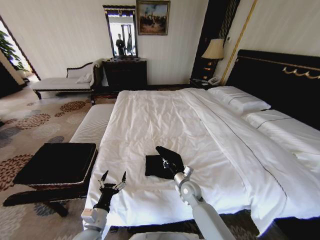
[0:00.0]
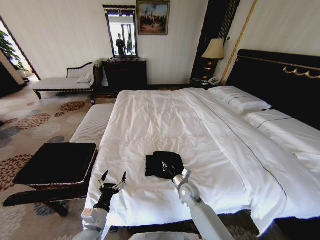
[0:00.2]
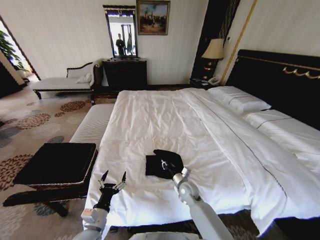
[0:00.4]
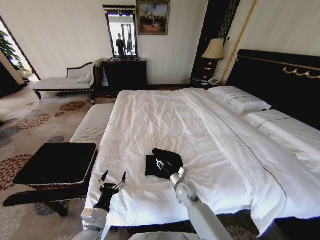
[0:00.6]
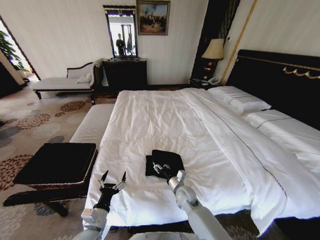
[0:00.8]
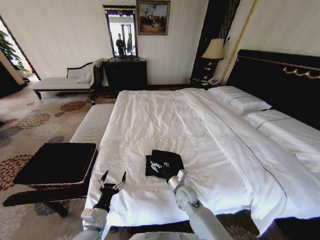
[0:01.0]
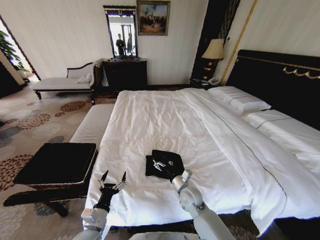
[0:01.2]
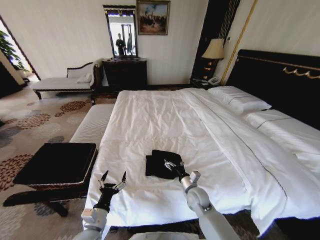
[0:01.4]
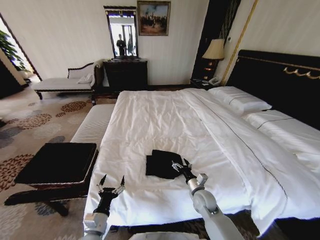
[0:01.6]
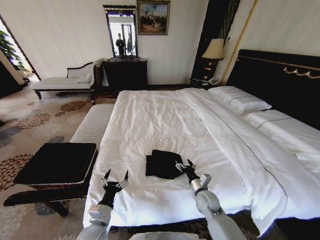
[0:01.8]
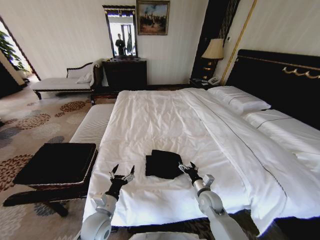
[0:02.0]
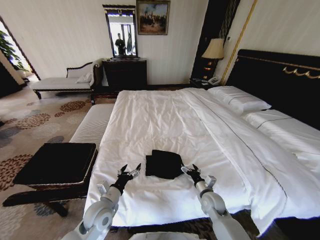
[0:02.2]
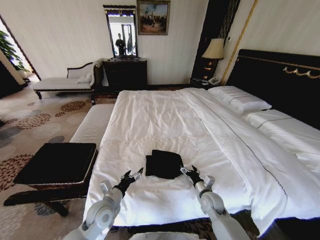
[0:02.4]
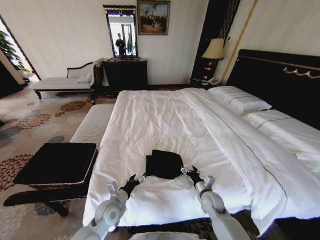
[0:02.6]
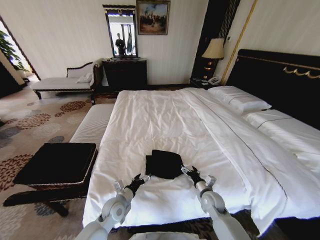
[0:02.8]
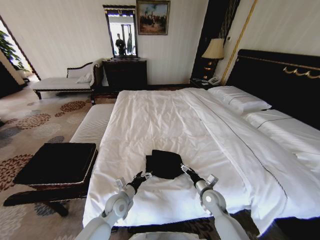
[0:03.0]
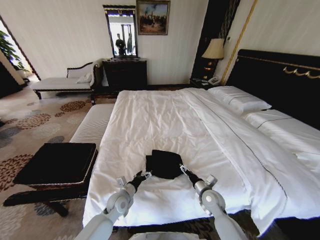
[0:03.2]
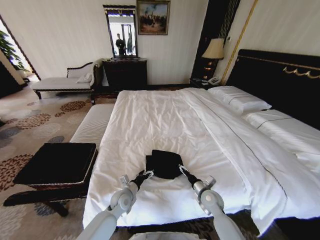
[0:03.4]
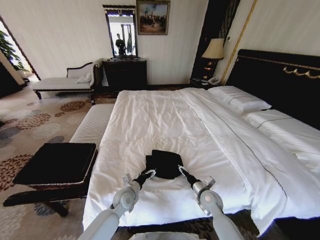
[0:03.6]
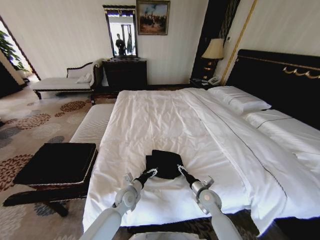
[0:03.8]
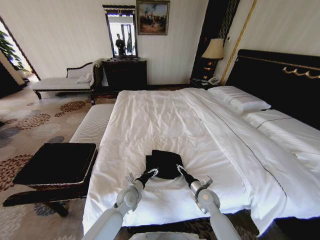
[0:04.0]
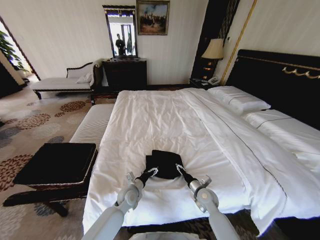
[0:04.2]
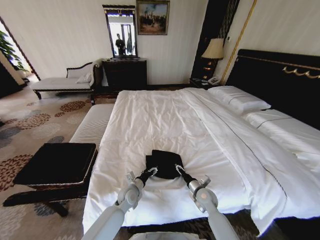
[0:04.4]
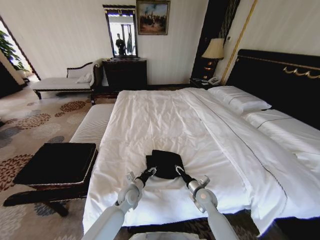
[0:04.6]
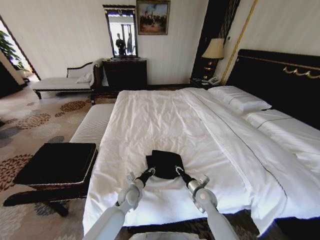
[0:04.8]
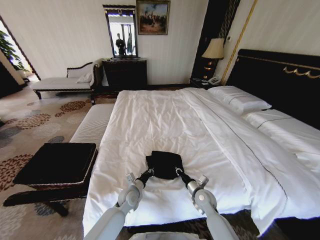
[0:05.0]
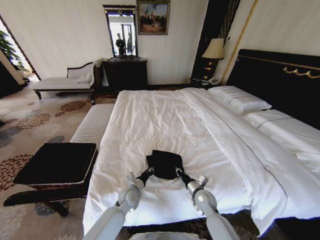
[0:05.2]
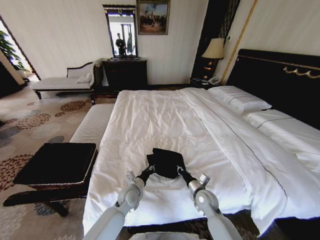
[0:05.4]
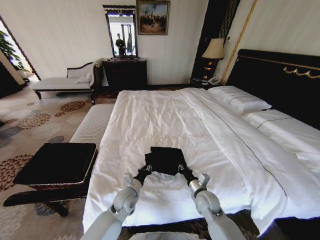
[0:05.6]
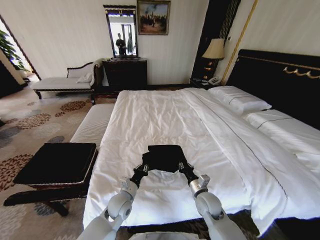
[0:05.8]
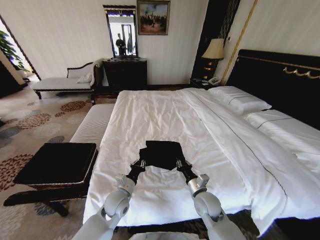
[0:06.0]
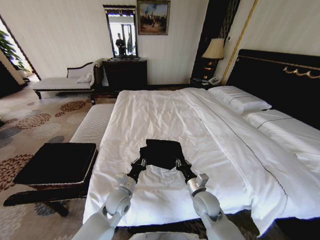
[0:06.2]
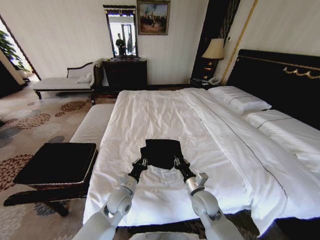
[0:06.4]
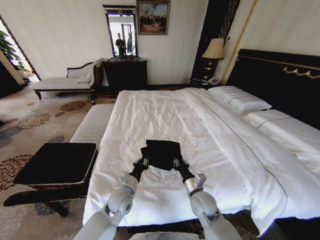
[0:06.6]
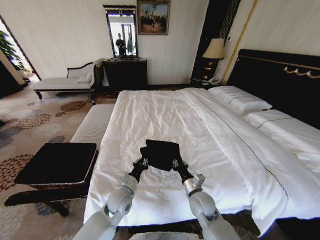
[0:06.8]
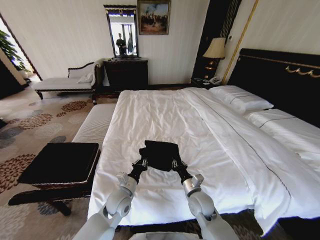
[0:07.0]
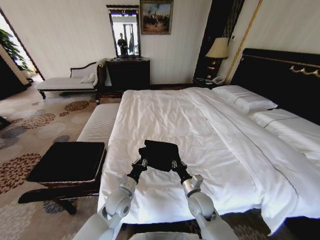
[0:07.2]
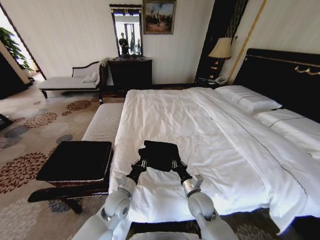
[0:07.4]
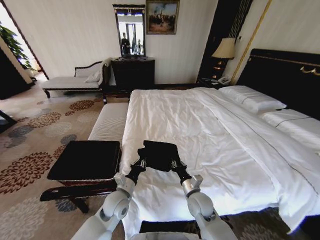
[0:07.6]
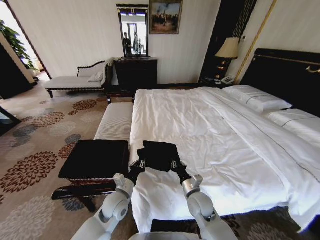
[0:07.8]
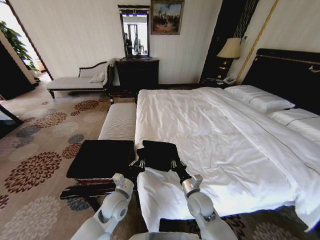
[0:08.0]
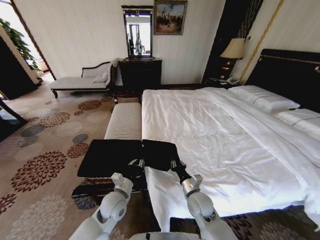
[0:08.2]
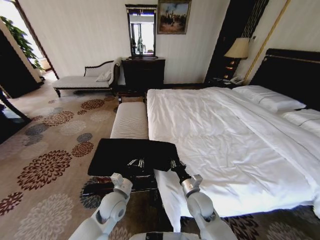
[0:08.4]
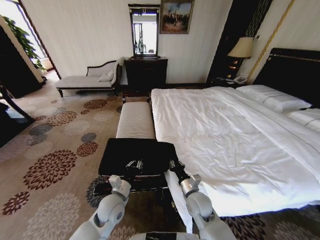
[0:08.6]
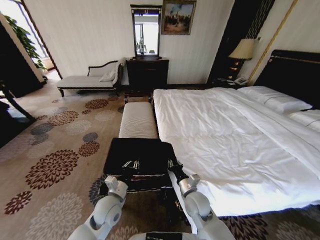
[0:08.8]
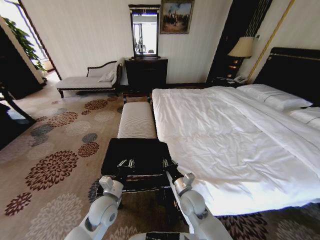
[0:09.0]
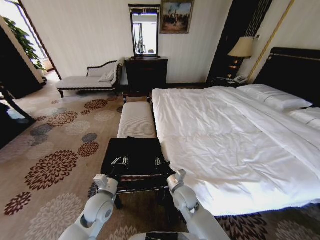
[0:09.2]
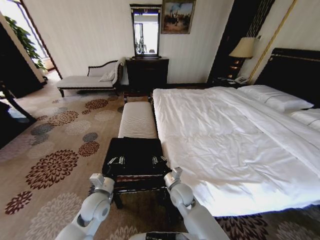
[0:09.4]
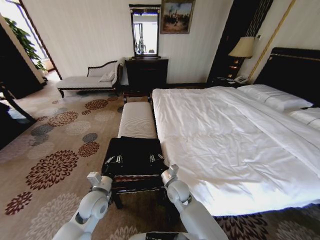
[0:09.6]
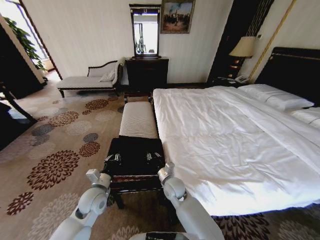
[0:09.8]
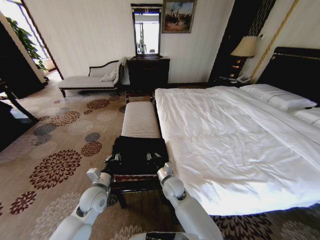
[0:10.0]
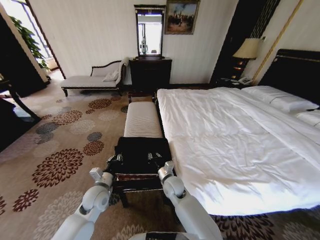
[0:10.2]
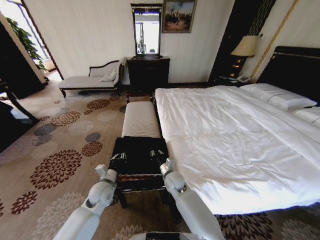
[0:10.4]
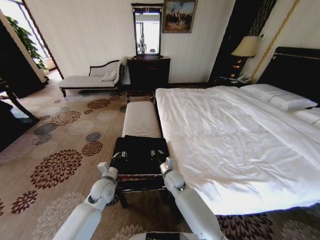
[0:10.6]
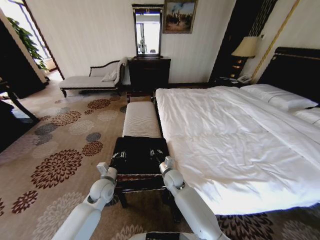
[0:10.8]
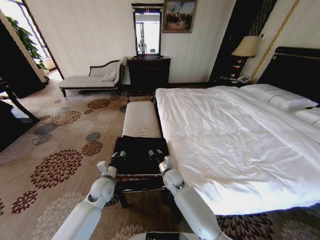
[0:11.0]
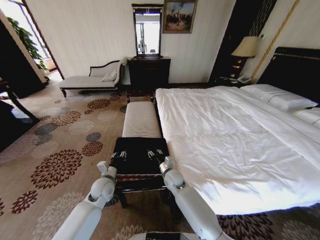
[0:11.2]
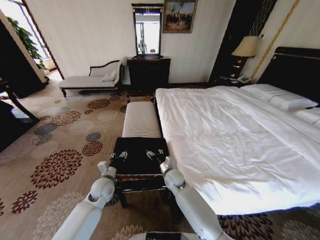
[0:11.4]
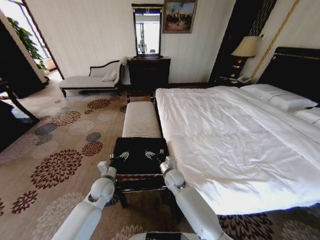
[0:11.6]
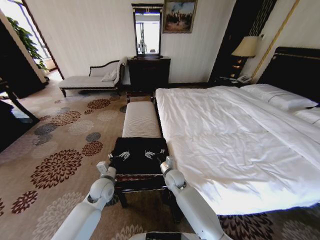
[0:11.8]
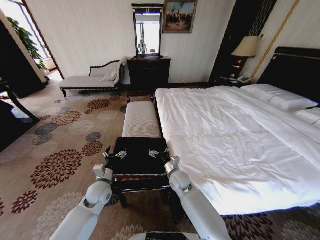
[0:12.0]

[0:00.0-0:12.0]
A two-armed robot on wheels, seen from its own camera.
Task of the whole recording: Fold the clothes on the bed and place them into the basket.
0:00.0 to 0:01.6: The right gripper moves some 5 cm, and opens.
0:01.6 to 0:03.0: The right gripper goes approximately 5 cm to the right, while the left gripper heads forward and to the right, covering roughly 15 cm.
0:03.0 to 0:04.4: The left gripper shifts by roughly 5 cm.
0:04.4 to 0:06.0: The grippers both shift upward by some 5 cm. The left gripper closes up, while the right gripper closes up.
0:09.0 to 0:10.4: The right gripper moves forward and to the left, about 10 cm. Meanwhile the left gripper goes approximately 5 cm forward.
0:10.4 to 0:12.0: The right gripper opens up, while the left gripper opens.
